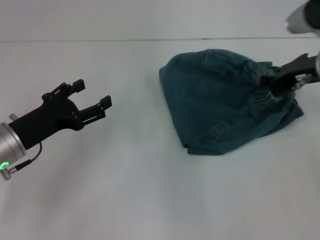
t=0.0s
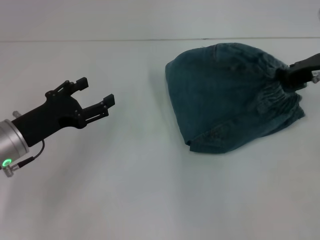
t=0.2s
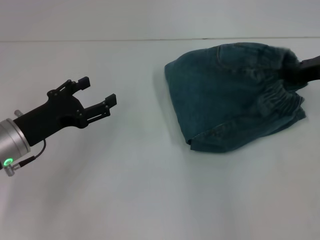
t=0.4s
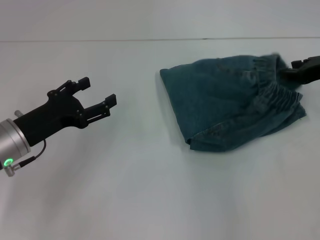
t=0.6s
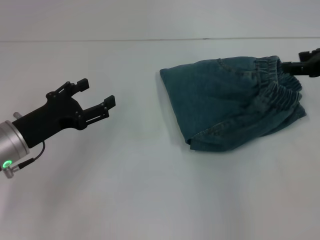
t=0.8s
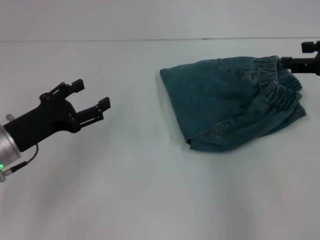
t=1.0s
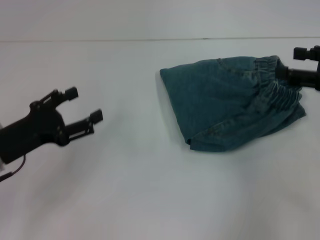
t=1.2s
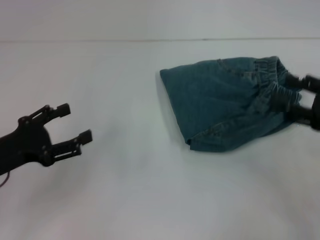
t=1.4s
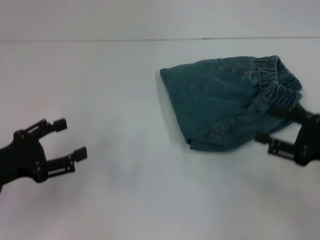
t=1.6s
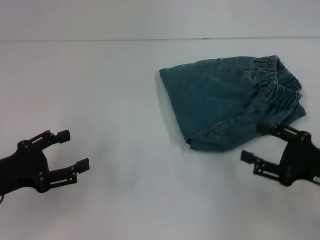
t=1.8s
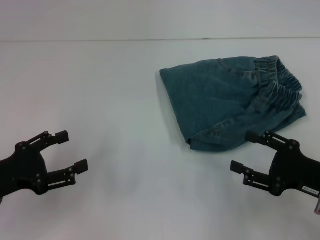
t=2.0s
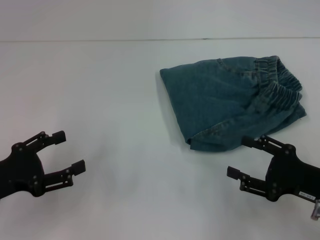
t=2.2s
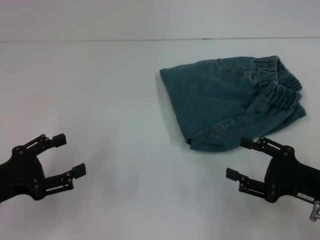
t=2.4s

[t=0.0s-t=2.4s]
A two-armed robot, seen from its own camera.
t=0.0s to t=1.2s: The right gripper heads to the right and backward, covering roughly 10 cm, and opens.
t=1.2s to t=2.4s: The right gripper heads downward and backward, covering approximately 15 cm. Meanwhile the left gripper goes some 5 cm backward.

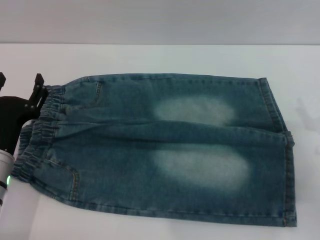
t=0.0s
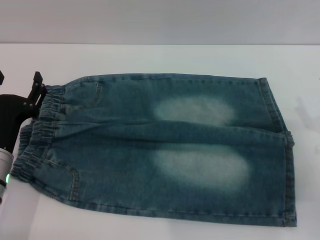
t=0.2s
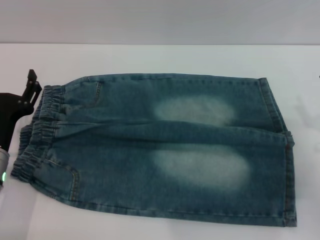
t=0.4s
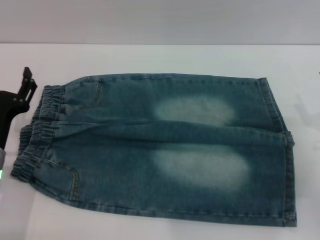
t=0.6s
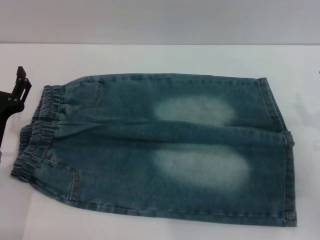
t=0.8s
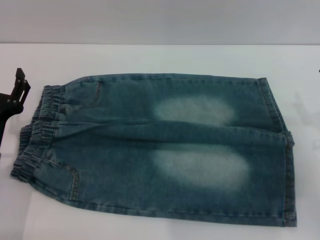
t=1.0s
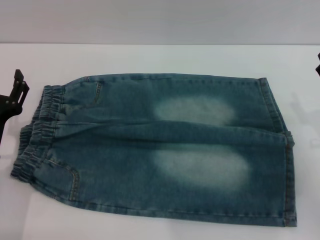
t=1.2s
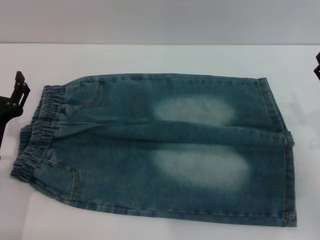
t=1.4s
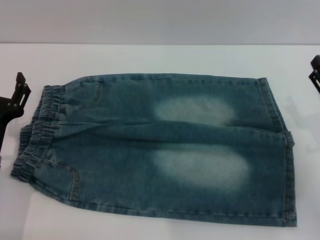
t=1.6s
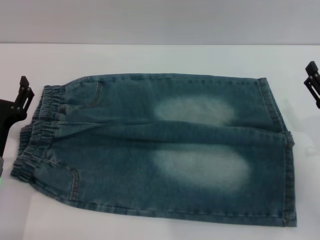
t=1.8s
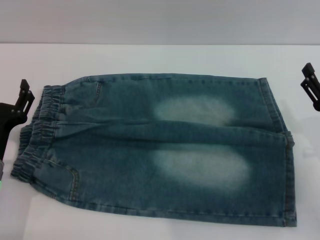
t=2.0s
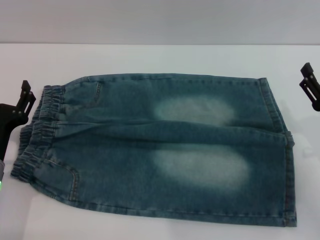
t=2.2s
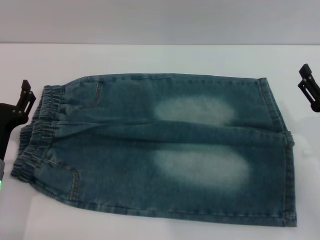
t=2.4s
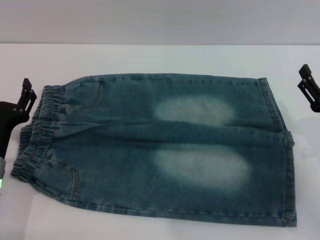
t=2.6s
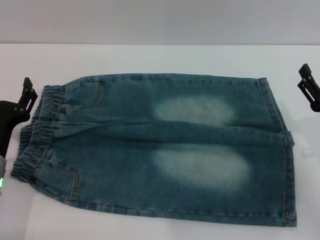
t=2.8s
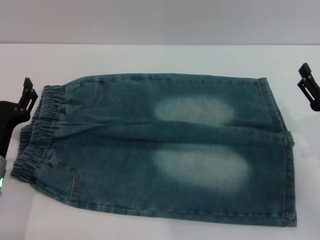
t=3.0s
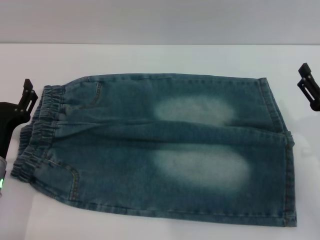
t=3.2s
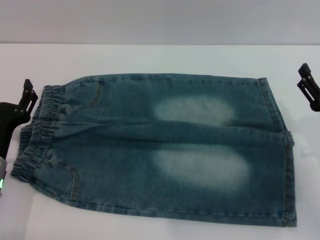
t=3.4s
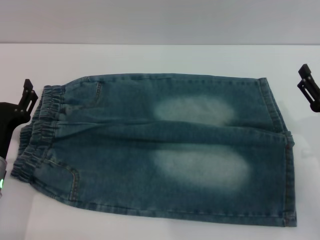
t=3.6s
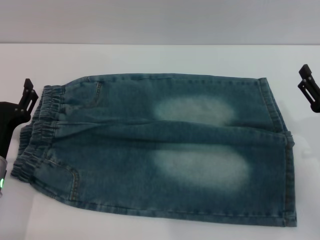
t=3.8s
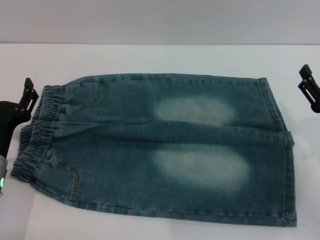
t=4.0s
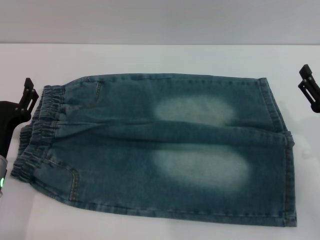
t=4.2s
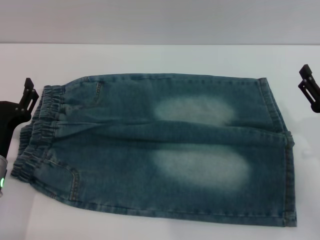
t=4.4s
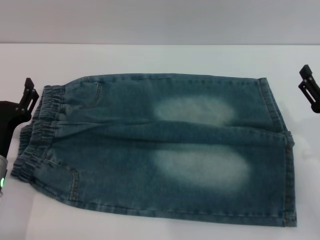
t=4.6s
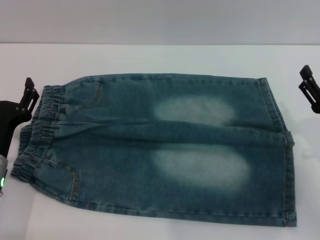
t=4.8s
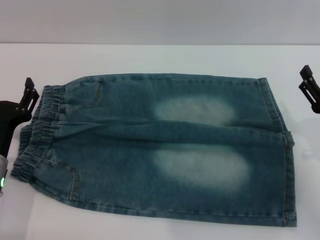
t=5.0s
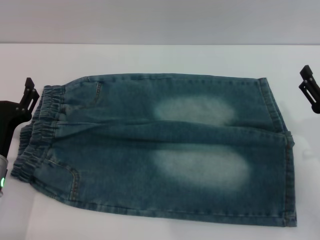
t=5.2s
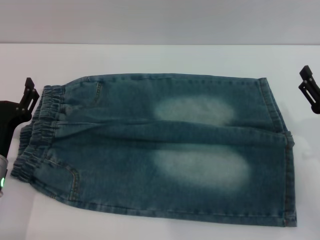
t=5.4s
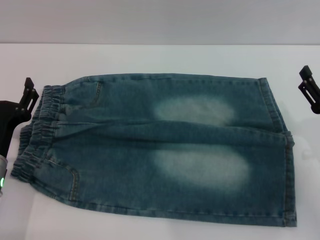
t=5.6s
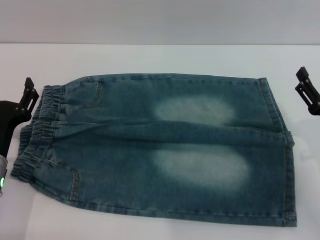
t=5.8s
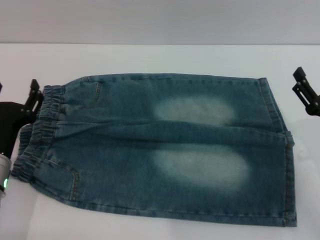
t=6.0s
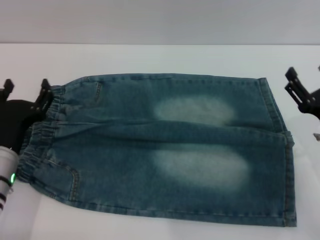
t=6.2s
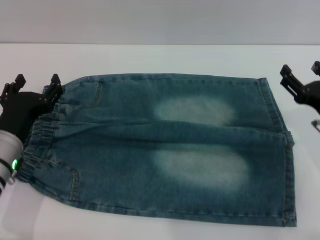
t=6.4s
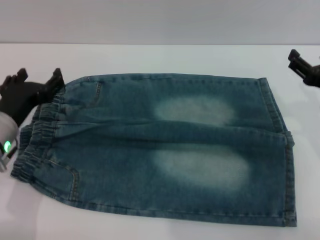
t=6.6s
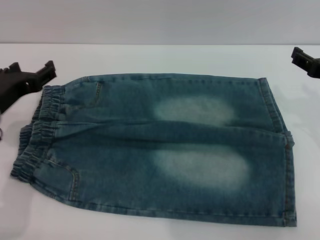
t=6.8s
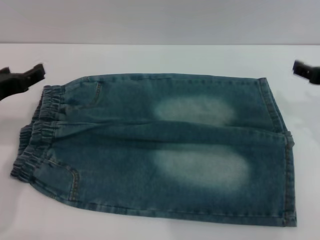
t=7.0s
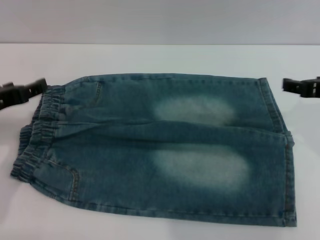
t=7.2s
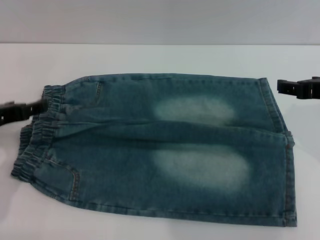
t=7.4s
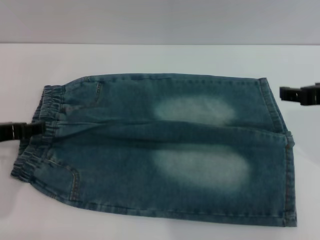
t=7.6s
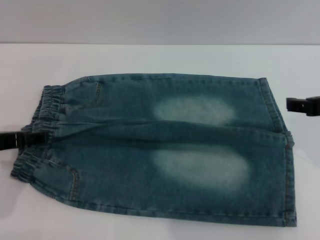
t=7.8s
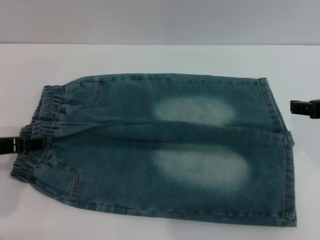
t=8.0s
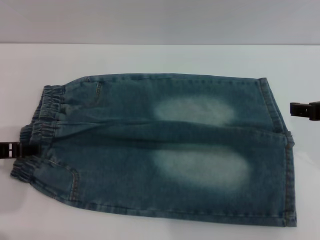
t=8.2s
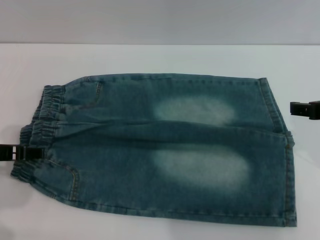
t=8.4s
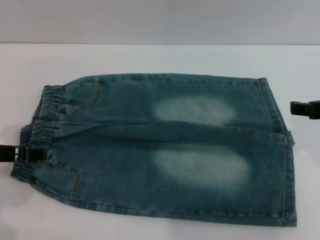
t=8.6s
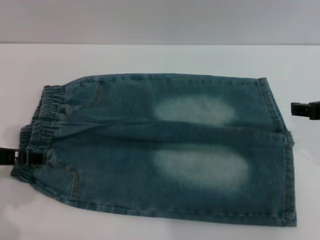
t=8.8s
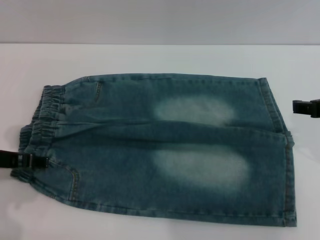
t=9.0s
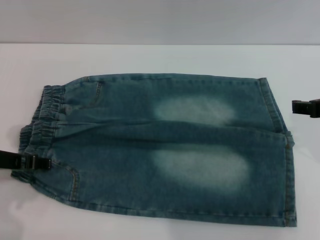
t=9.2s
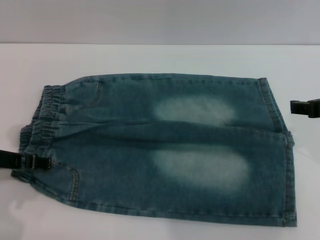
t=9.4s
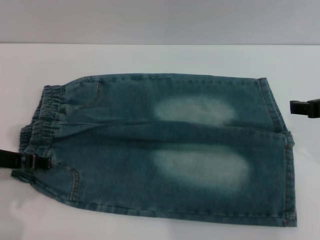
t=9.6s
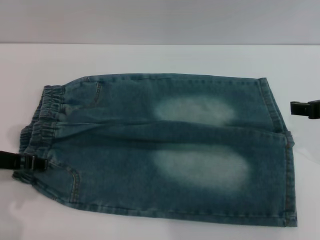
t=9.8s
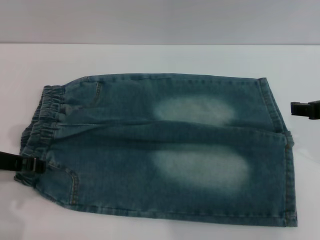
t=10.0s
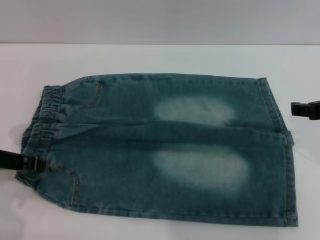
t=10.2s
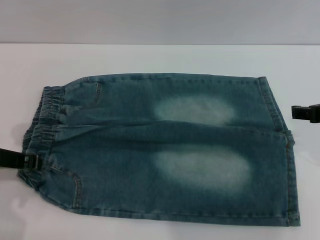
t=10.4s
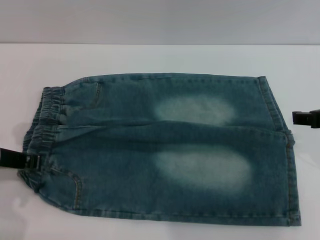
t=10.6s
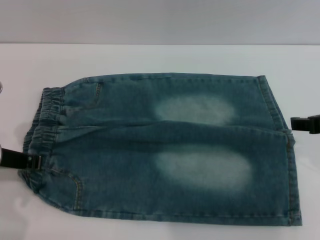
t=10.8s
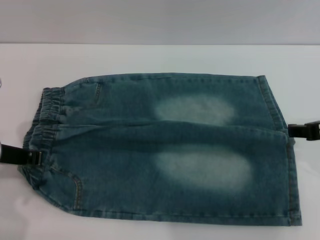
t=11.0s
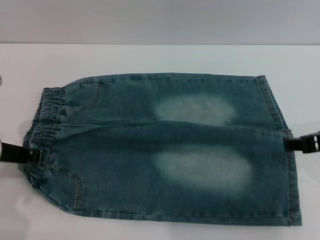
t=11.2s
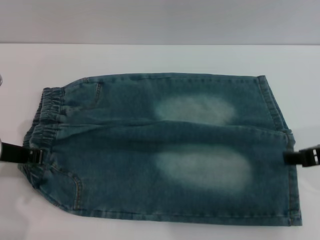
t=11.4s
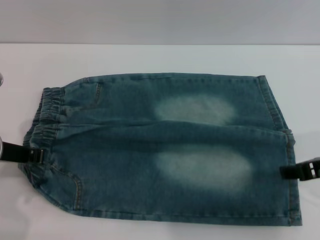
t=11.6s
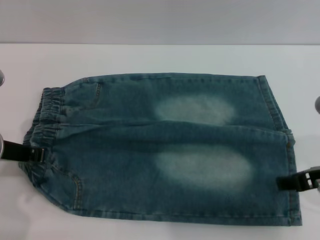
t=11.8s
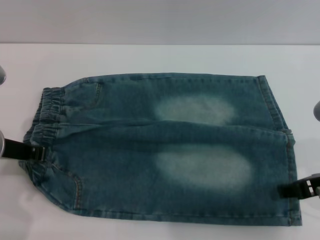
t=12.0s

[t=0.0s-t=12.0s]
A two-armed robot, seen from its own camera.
t=0.0s to t=1.6s: The grippers stay close to where they were, moving slightly.
t=1.6s to t=4.4s: Both grippers stay put.
t=4.4s to t=6.0s: Neither gripper changes place.
t=6.0s to t=7.6s: Both grippers travel together upward, about 15 cm.
t=7.6s to t=9.0s: The grippers make only small movements.
t=9.0s to t=10.4s: The left gripper closes up.
t=10.4s to t=12.0s: The left gripper closes its fingers. Meanwhile the right gripper shifts by approximately 5 cm.

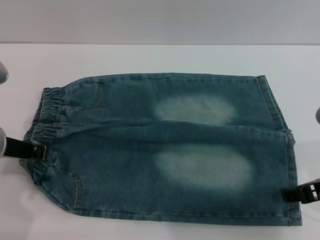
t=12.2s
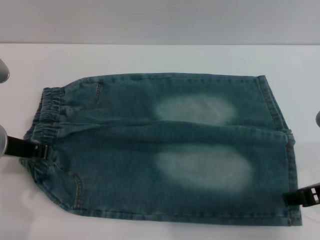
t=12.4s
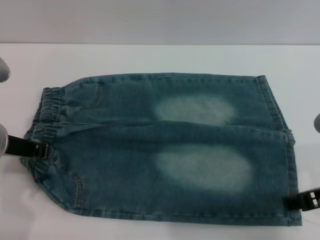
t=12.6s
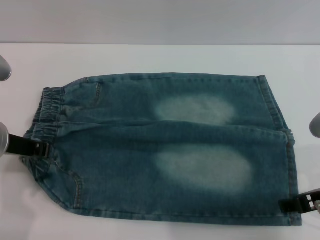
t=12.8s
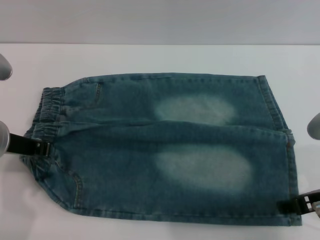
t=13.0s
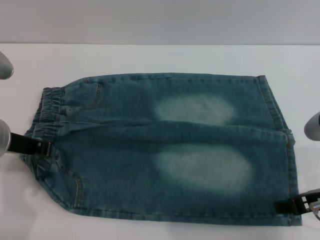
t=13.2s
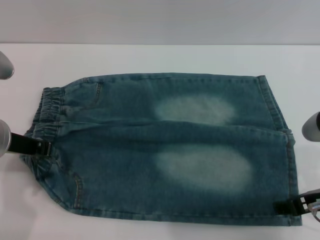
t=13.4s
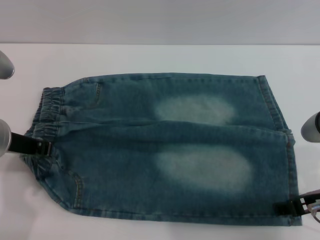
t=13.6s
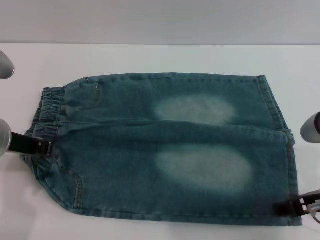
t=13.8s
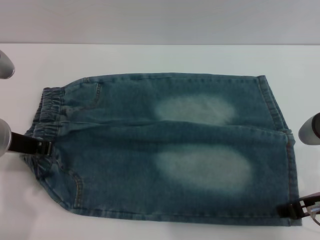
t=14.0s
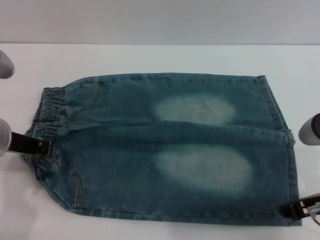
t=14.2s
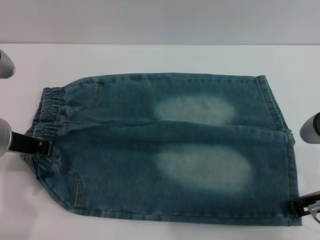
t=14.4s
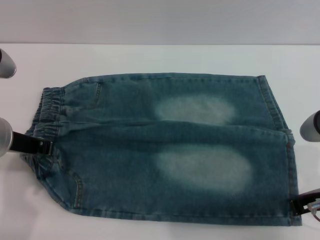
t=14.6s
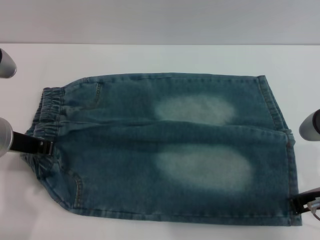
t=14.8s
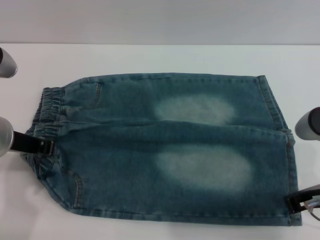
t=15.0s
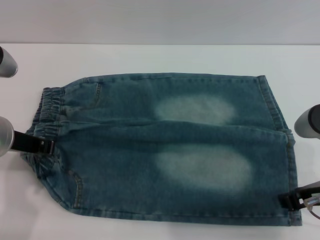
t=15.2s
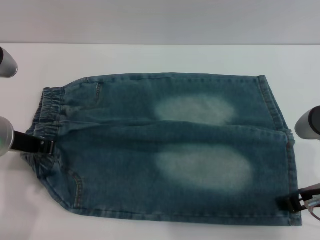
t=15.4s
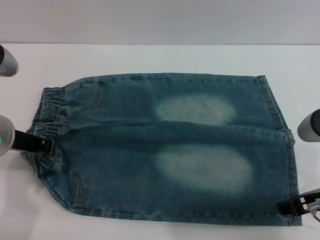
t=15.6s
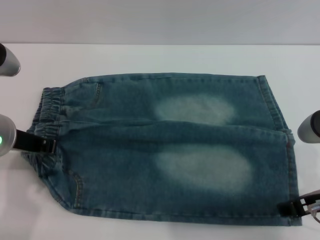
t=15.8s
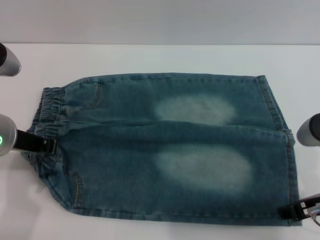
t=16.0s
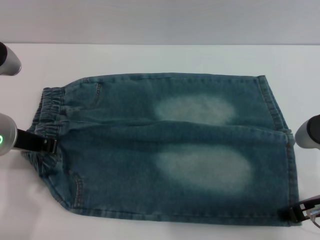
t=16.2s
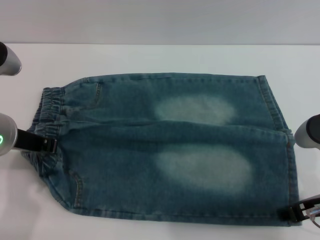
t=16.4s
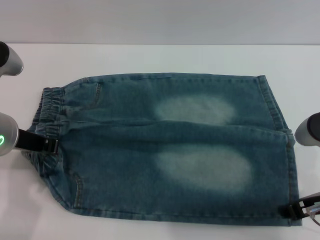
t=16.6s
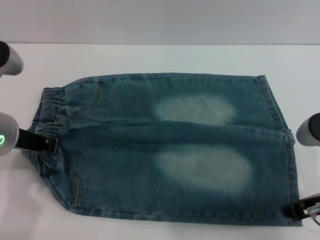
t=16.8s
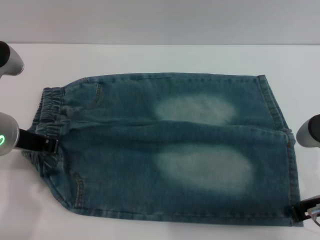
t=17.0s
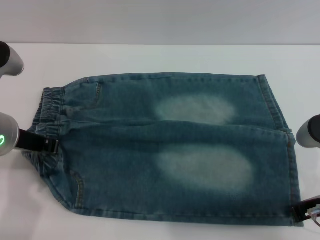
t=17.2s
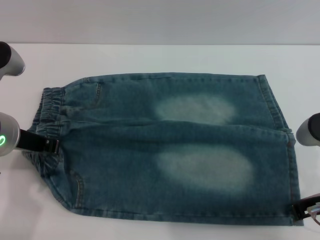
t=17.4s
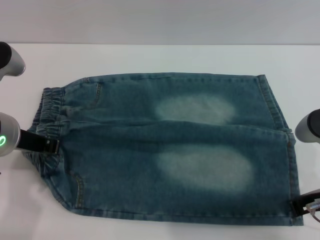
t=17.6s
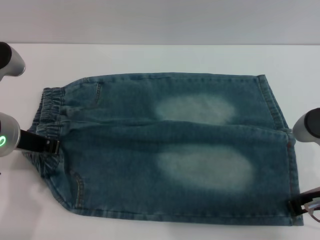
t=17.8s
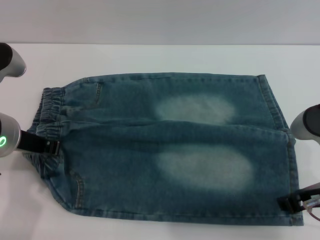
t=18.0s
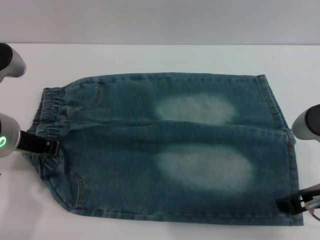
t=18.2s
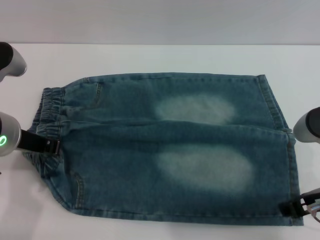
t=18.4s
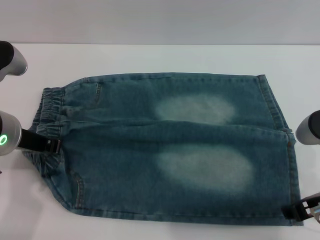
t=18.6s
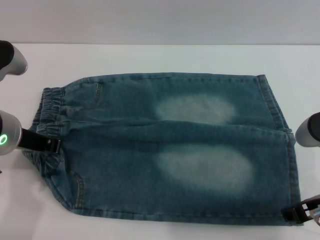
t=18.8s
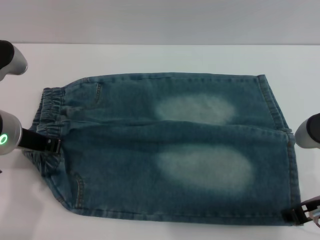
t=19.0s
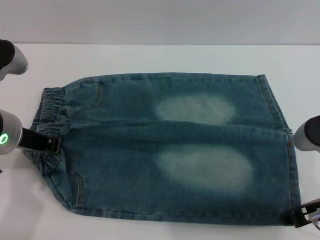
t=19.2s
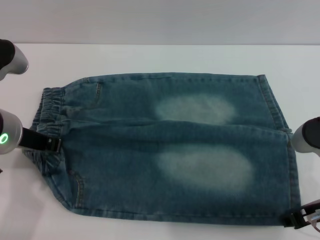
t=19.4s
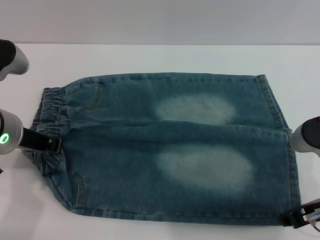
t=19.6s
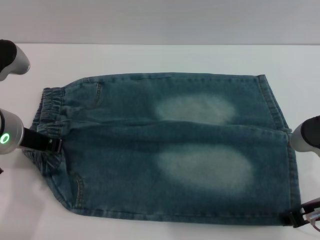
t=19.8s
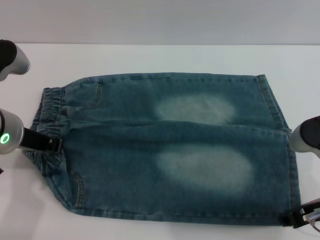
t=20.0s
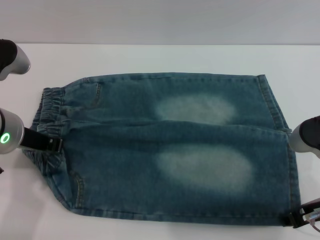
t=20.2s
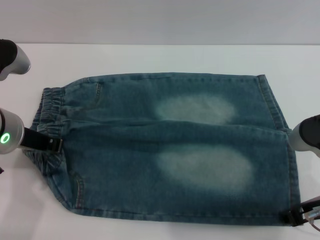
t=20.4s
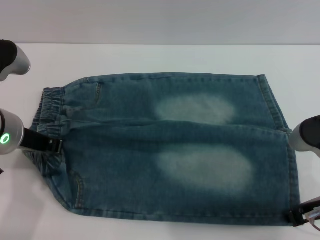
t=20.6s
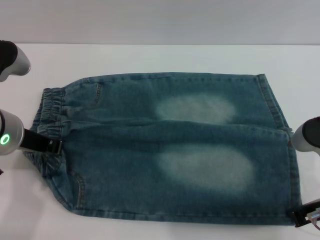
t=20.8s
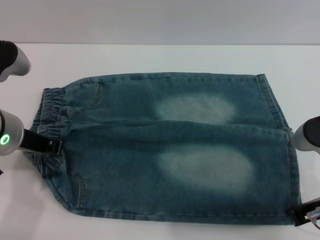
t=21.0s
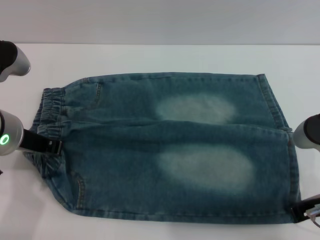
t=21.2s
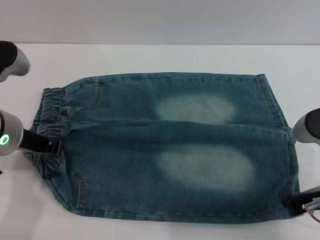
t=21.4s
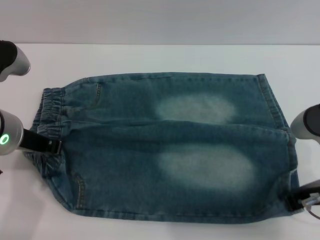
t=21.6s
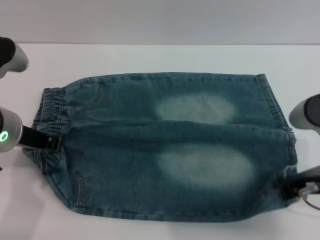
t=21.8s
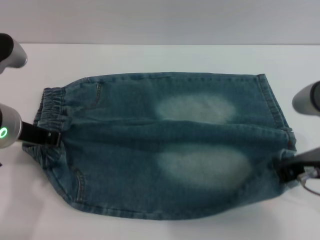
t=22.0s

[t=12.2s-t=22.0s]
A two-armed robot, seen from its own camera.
t=12.2s to t=13.6s: The grippers move only a little.
t=13.6s to t=15.0s: The right gripper closes up.
t=15.0s to t=16.4s: The right gripper opens up.
t=16.4s to t=17.8s: The right gripper closes.
t=17.8s to t=19.2s: The right gripper opens up.
t=19.2s to t=20.6s: Both grippers stay about where they are.
t=20.6s to t=22.0s: The right gripper closes its fingers.
